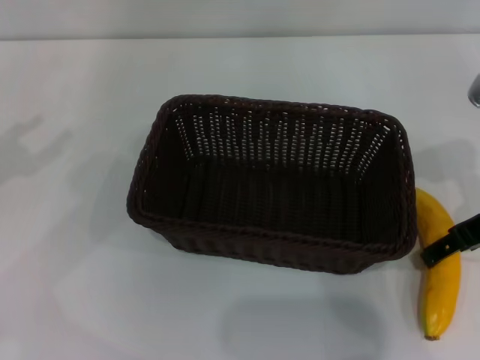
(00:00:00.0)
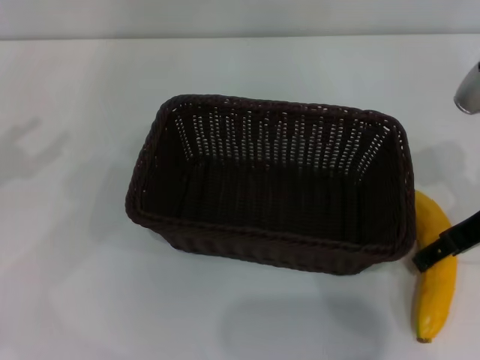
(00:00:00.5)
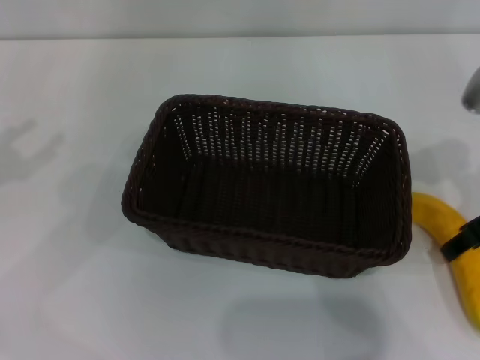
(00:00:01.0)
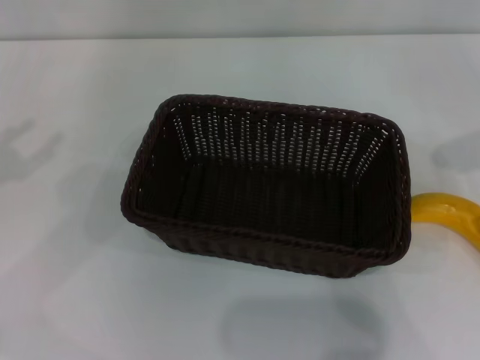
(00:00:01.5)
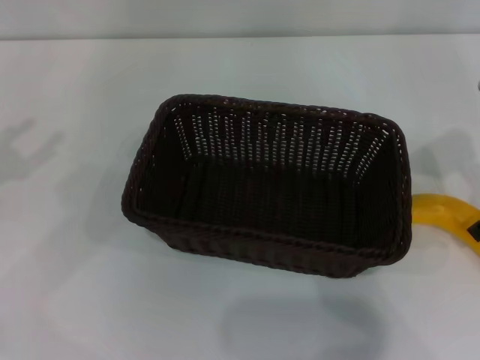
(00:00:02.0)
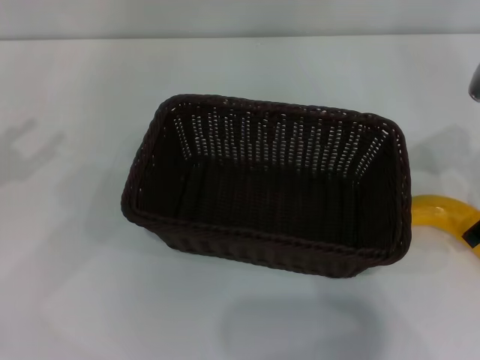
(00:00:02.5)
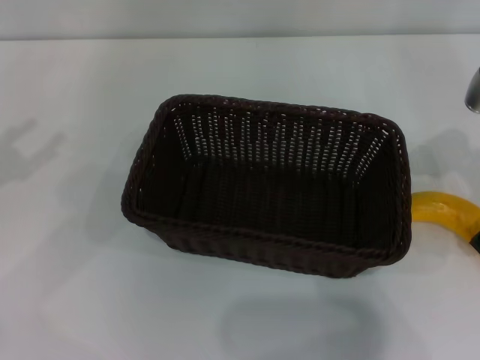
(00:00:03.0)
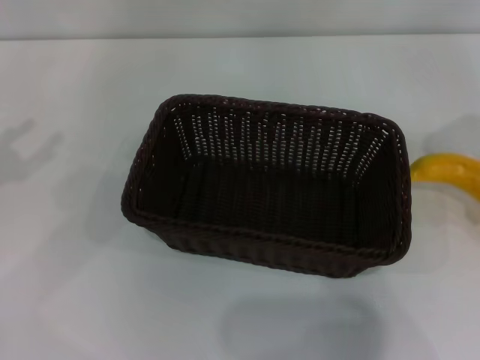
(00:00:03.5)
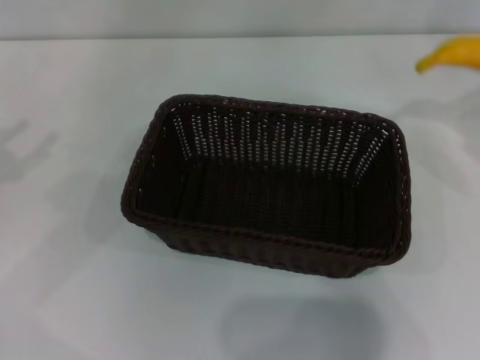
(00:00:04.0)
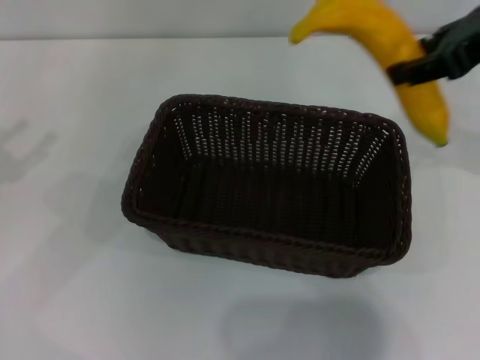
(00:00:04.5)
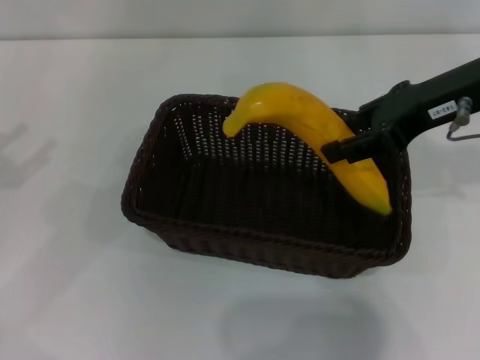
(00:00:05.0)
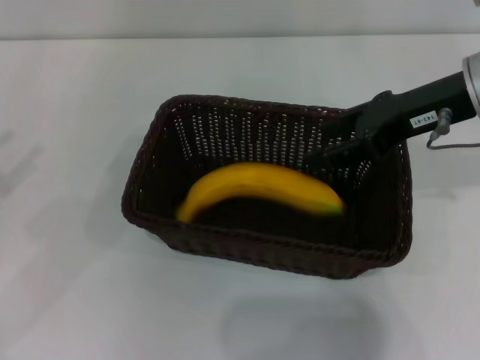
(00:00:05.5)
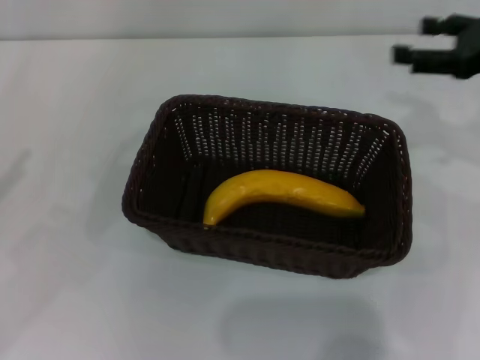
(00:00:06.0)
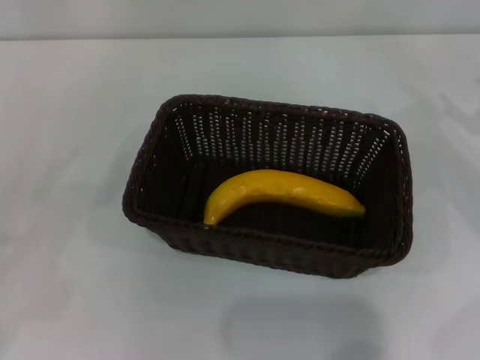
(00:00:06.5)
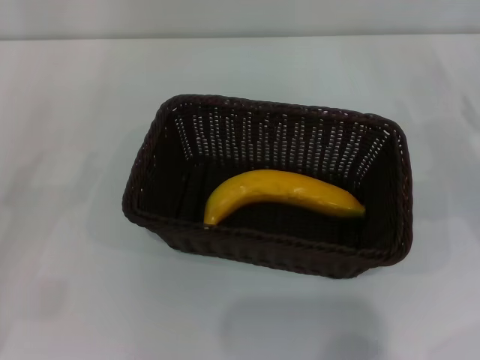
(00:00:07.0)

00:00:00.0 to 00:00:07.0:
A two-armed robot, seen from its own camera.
Step, 00:00:00.0 to 00:00:03.5: Pick up the banana with the right gripper.
Step, 00:00:04.0 to 00:00:05.5: Place the banana into the dark basket with the right gripper.
00:00:00.0 to 00:00:02.0: The right gripper closes.
00:00:02.0 to 00:00:03.5: The right gripper opens, then closes once more.
00:00:03.5 to 00:00:05.0: The right gripper travels to the left by about 5 cm.
00:00:05.0 to 00:00:07.0: The right gripper shifts approximately 20 cm downward and to the right, and opens up. Meanwhile the left gripper goes roughly 10 cm downward.

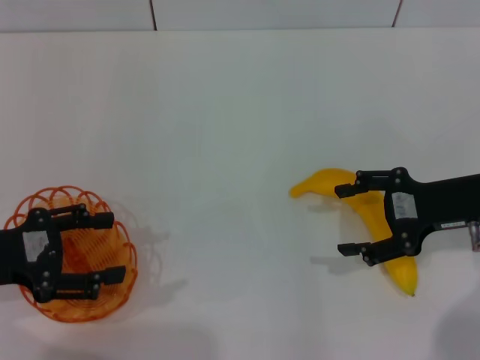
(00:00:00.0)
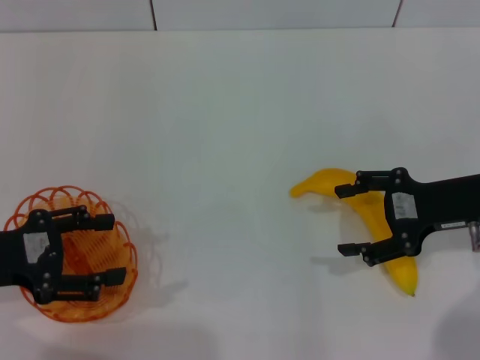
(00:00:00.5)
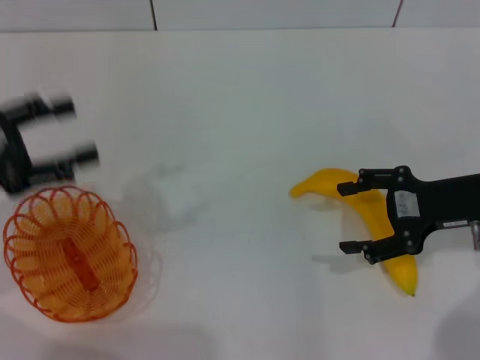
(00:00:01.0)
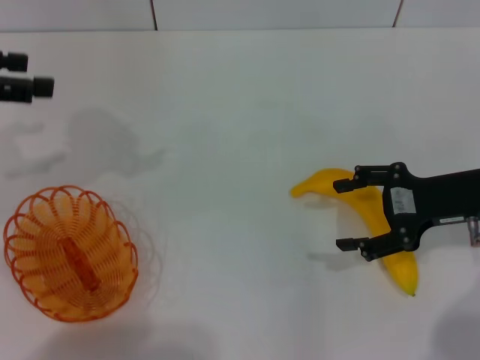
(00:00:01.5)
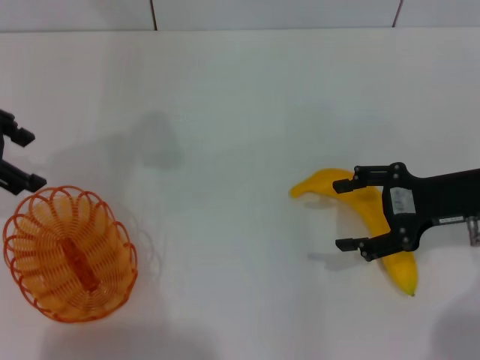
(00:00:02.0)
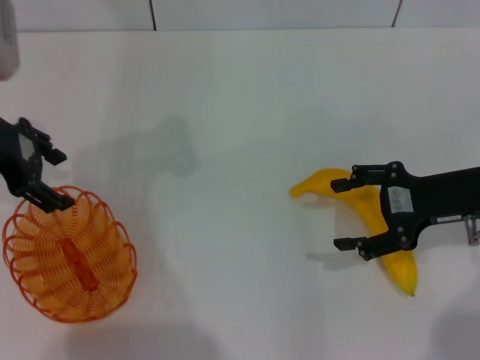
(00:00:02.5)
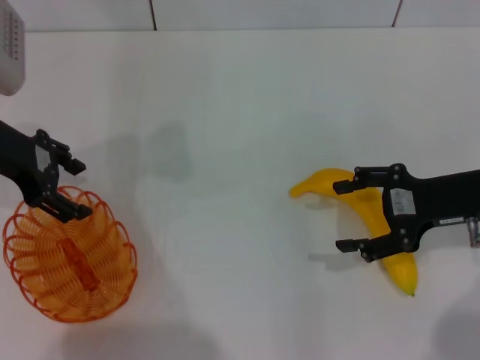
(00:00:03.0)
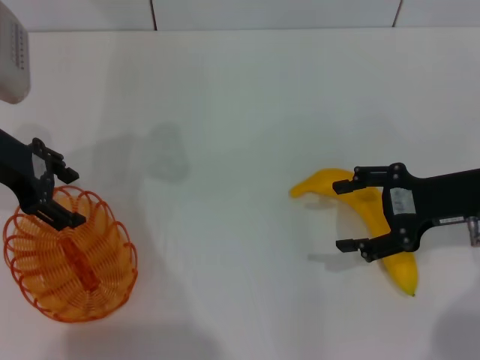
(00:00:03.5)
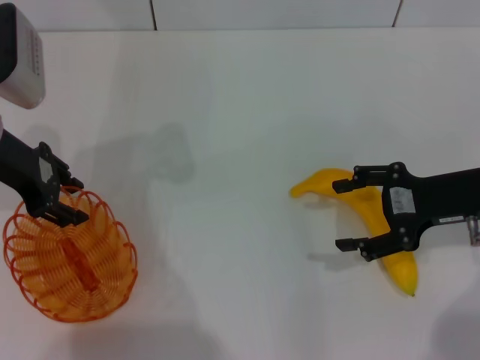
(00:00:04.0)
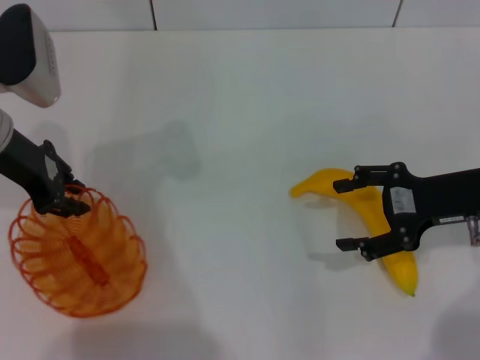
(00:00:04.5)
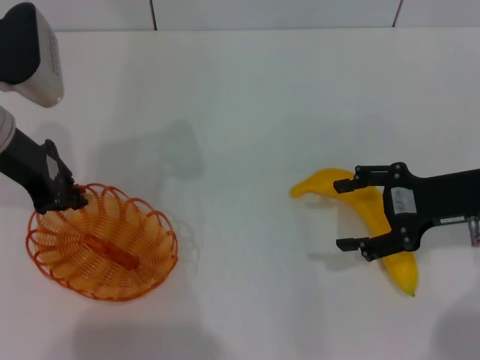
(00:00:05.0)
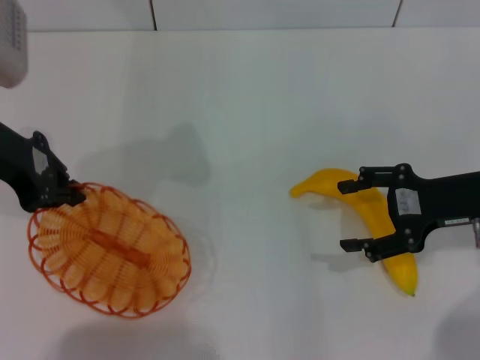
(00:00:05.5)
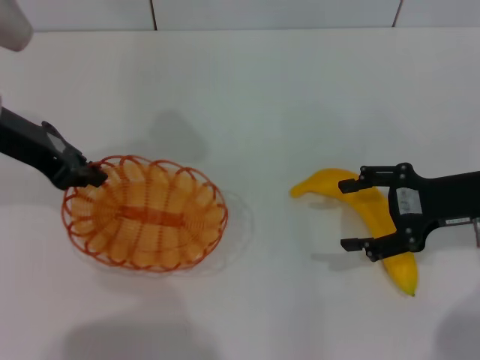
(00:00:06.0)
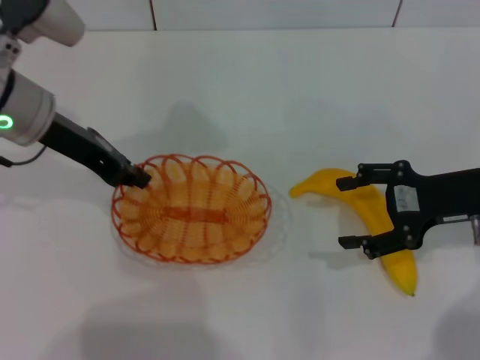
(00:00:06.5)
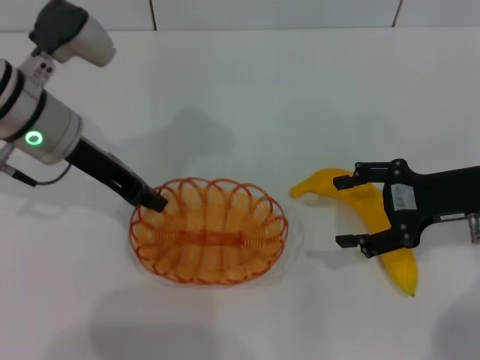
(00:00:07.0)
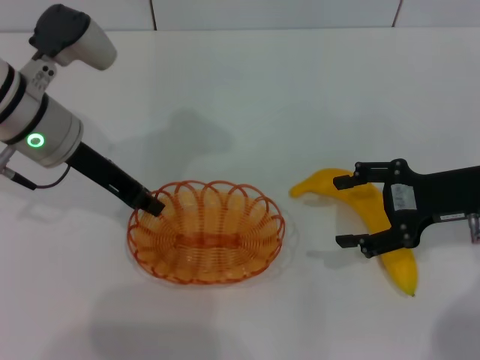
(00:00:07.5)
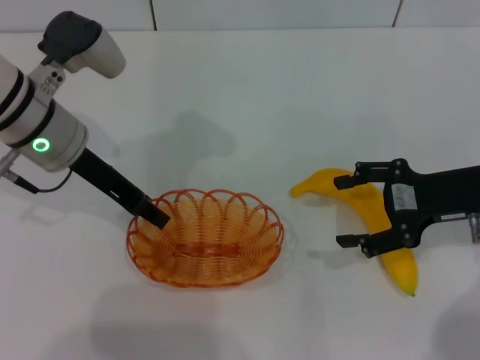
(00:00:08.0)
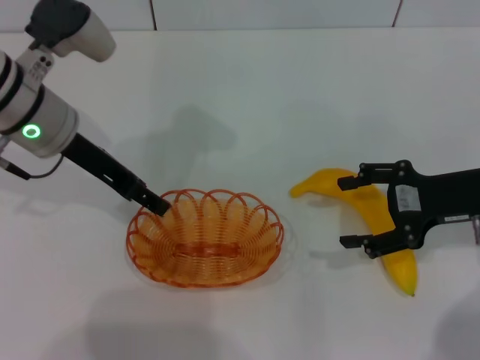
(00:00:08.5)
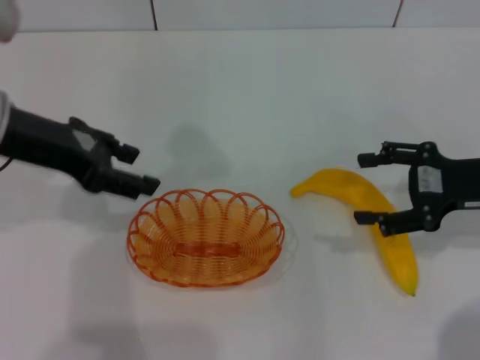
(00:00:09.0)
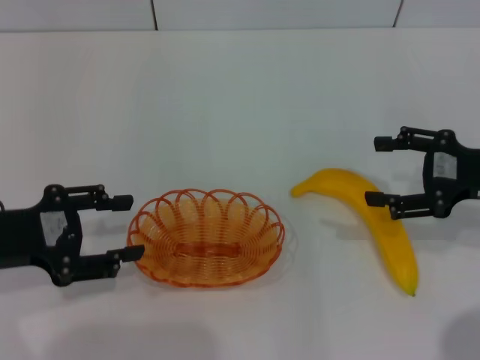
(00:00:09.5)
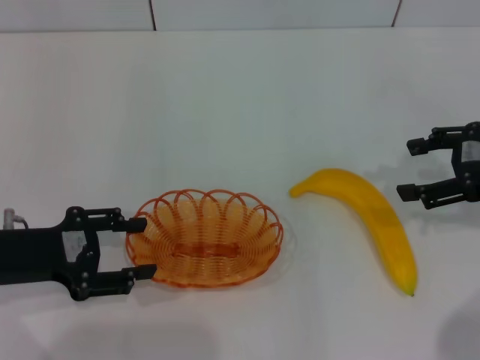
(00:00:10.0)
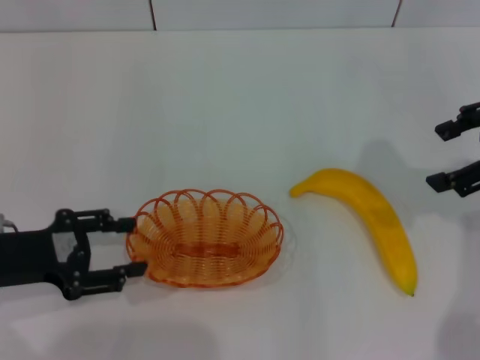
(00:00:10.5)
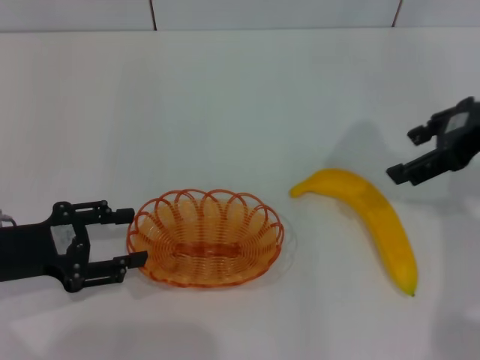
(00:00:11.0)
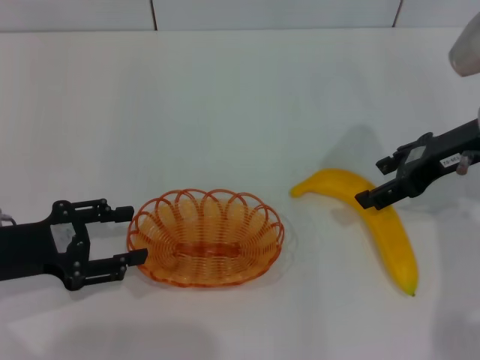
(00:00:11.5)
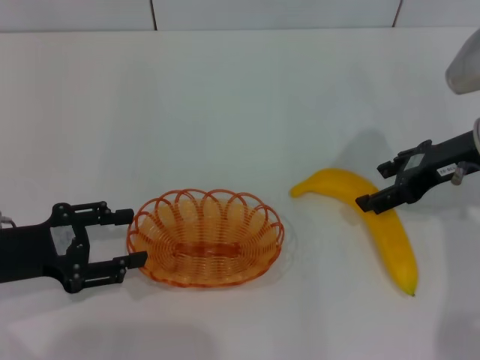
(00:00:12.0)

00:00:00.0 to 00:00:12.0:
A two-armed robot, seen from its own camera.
Step, 00:00:00.0 to 00:00:05.5: Pick up the basket with the left gripper.
Step, 00:00:06.0 to 00:00:08.5: Place the basket in the center of view with the left gripper.
00:00:00.0 to 00:00:02.0: The left gripper moves upward and forward, roughly 15 cm.
00:00:02.0 to 00:00:04.0: The left gripper goes approximately 5 cm downward.
00:00:04.0 to 00:00:06.0: The left gripper closes up.
00:00:06.0 to 00:00:08.0: The left gripper travels to the right by roughly 5 cm.
00:00:08.0 to 00:00:10.0: The left gripper is displaced backward, to the left and downward by about 15 cm, and opens. The right gripper travels upward by some 5 cm.
00:00:10.0 to 00:00:12.0: The right gripper moves to the left, roughly 5 cm, and travels upward and back again, approximately 10 cm each way.

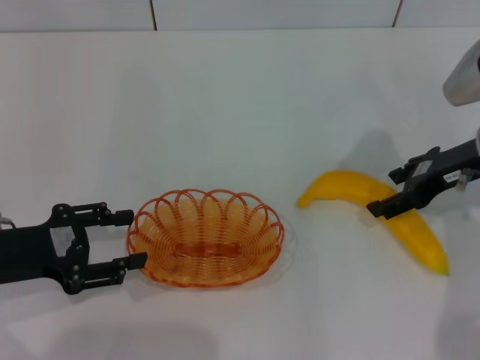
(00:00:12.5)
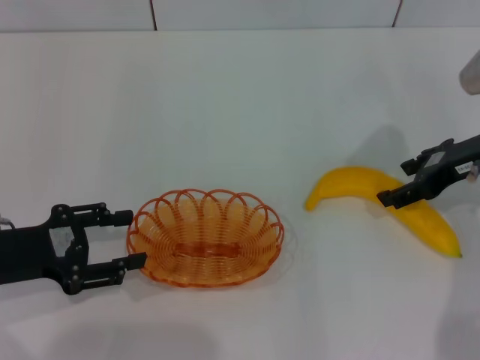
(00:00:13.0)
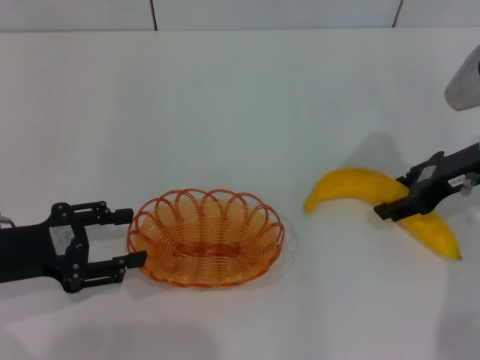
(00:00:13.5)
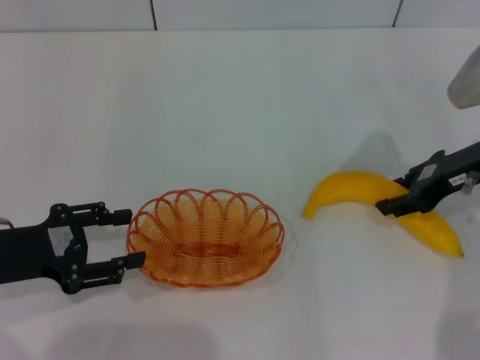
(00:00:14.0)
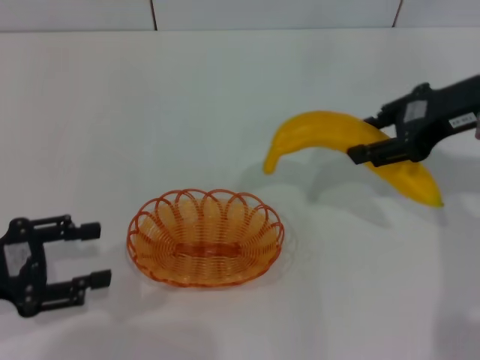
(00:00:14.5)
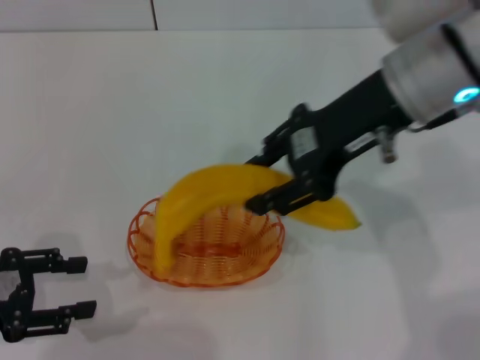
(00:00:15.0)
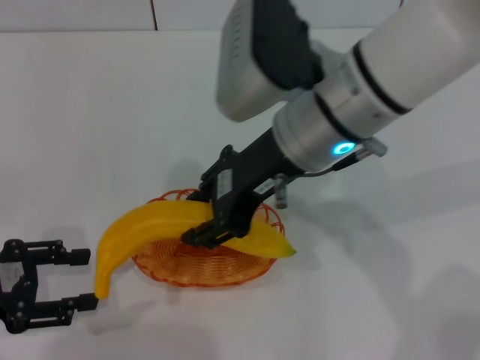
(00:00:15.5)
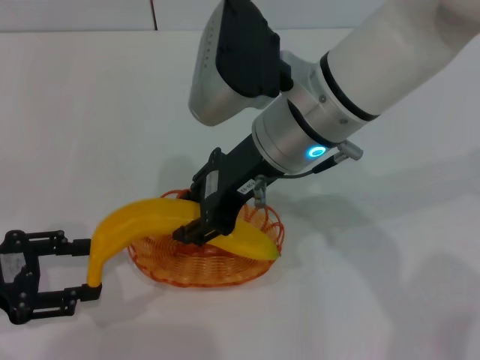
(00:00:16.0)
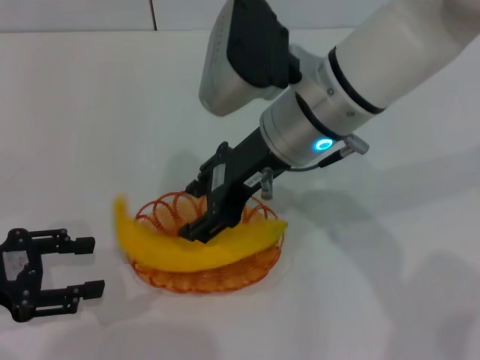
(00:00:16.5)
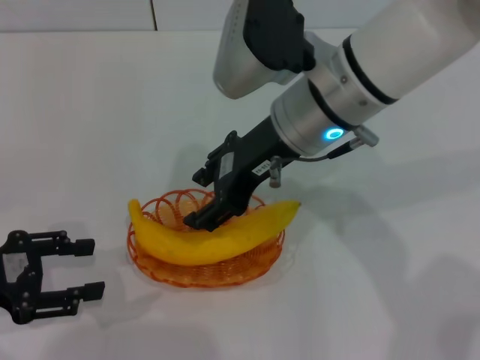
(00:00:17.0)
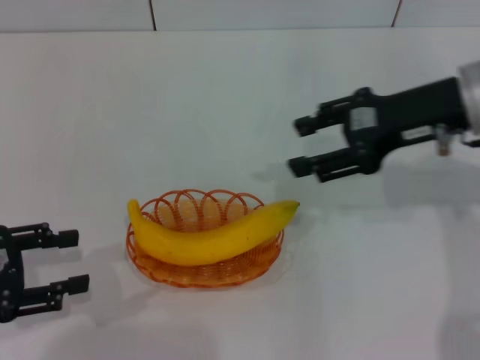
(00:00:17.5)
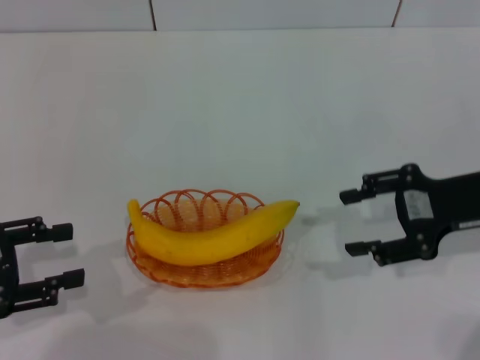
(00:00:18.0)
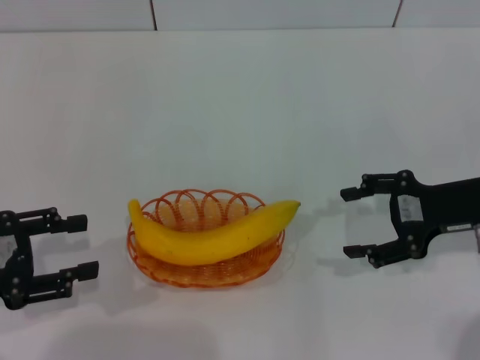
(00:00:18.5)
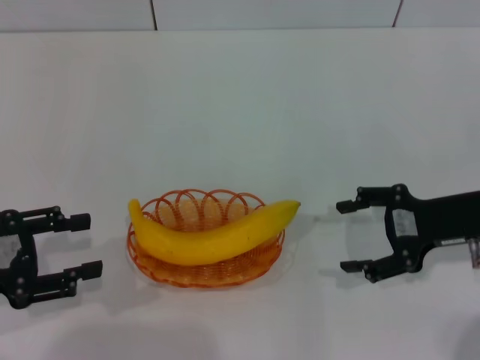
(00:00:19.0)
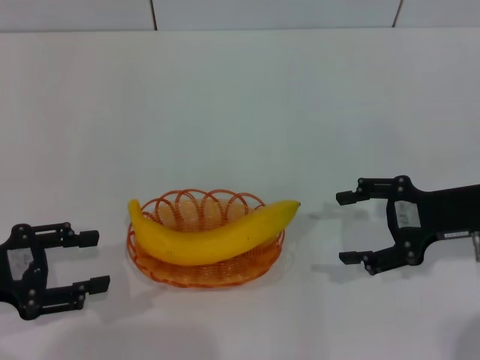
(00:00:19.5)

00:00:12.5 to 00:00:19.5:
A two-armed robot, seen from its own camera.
Step, 00:00:14.5 to 00:00:17.0: Place the banana into the basket with the right gripper.
00:00:12.5 to 00:00:14.5: The right gripper goes about 10 cm upward, and closes up.
00:00:14.5 to 00:00:16.0: The right gripper heads to the left, covering some 20 cm.
00:00:16.0 to 00:00:17.5: The right gripper goes roughly 15 cm to the right, and opens its fingers.
00:00:17.5 to 00:00:19.5: The right gripper travels downward and to the right by approximately 10 cm, and opens.
